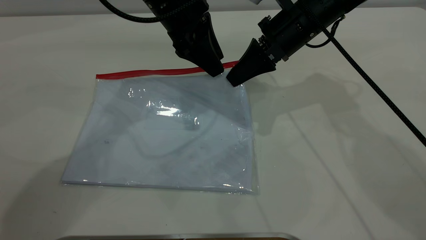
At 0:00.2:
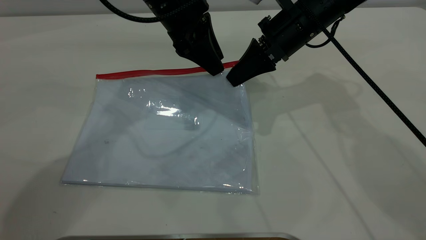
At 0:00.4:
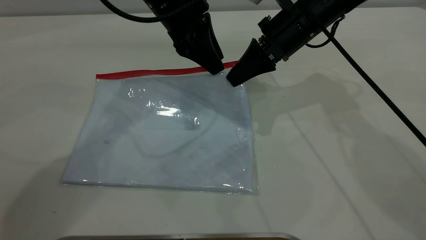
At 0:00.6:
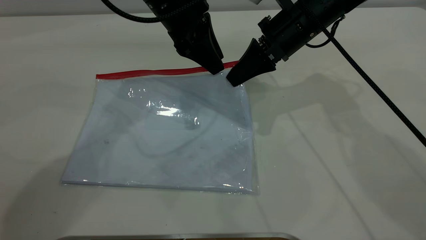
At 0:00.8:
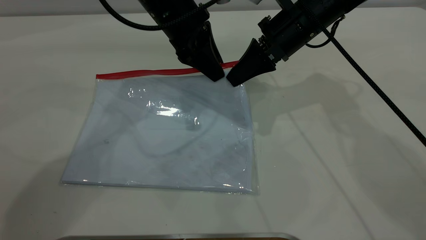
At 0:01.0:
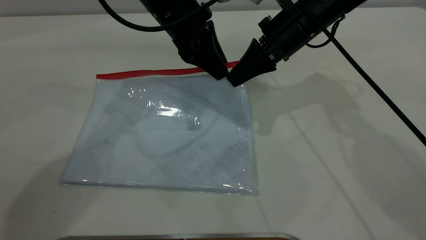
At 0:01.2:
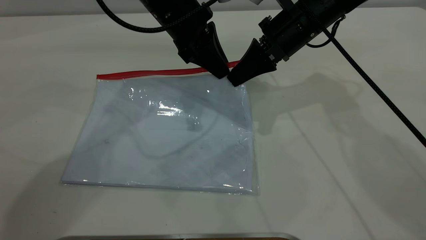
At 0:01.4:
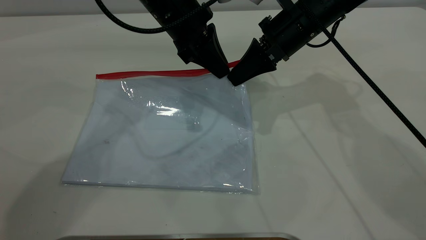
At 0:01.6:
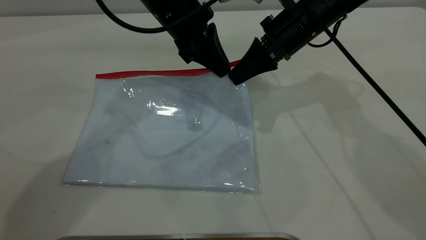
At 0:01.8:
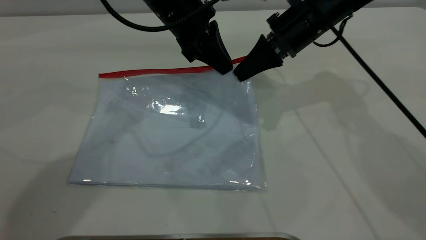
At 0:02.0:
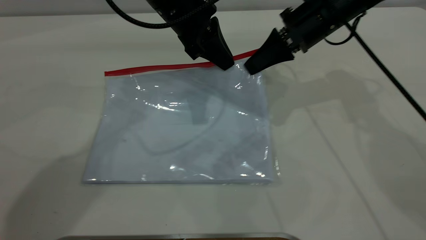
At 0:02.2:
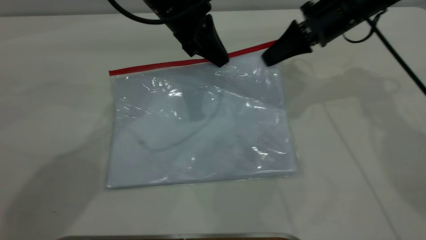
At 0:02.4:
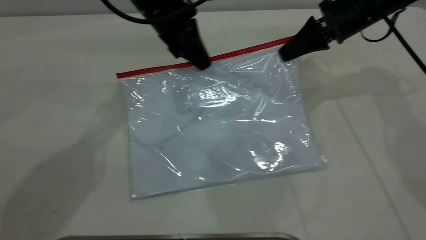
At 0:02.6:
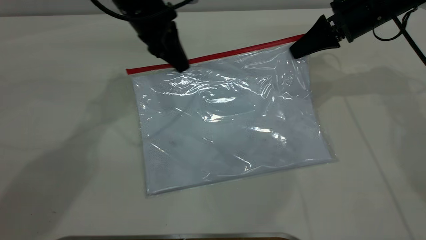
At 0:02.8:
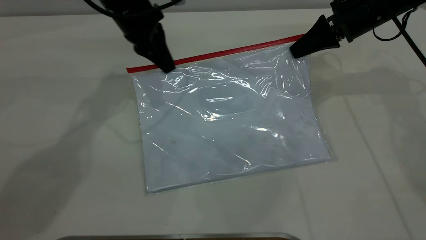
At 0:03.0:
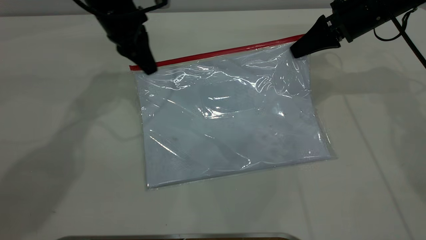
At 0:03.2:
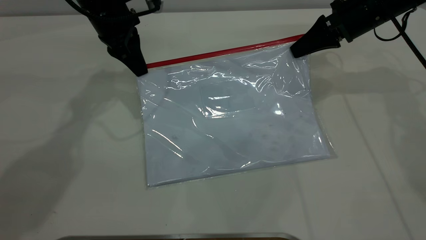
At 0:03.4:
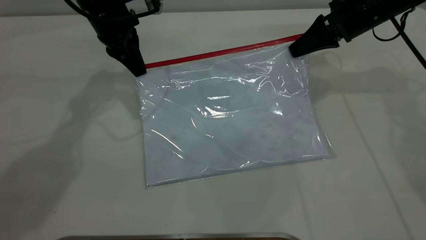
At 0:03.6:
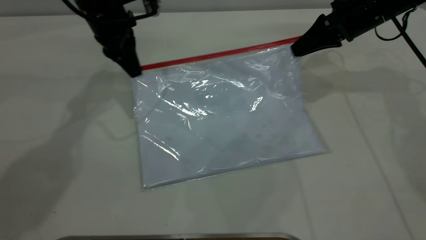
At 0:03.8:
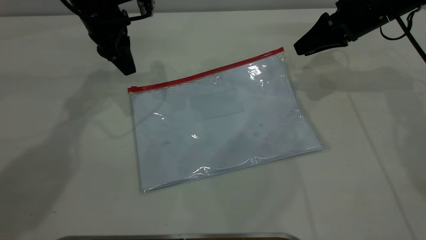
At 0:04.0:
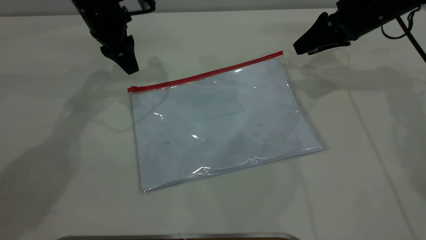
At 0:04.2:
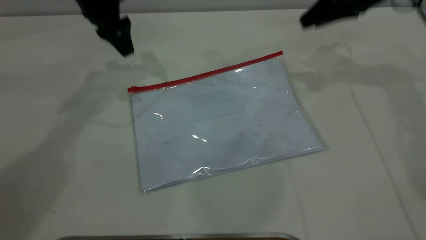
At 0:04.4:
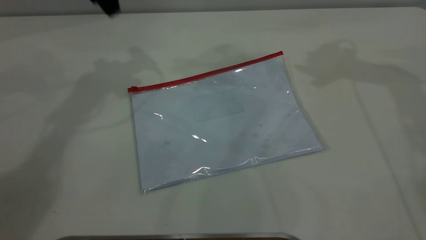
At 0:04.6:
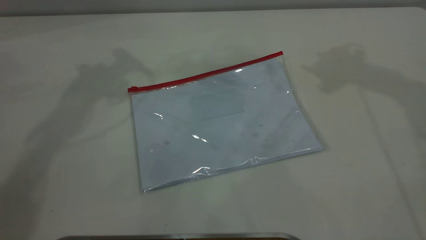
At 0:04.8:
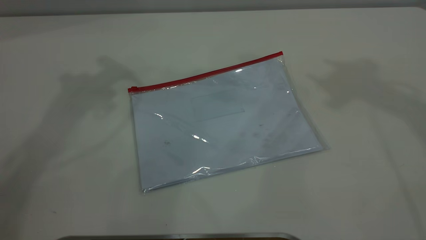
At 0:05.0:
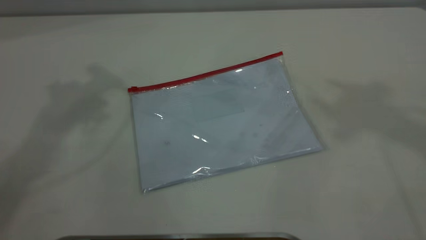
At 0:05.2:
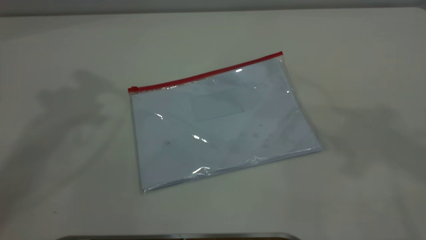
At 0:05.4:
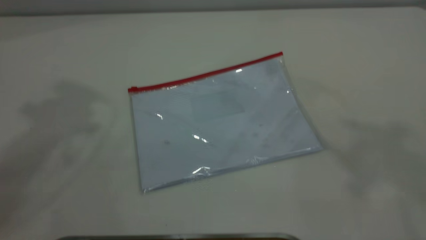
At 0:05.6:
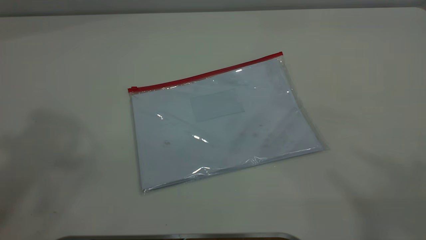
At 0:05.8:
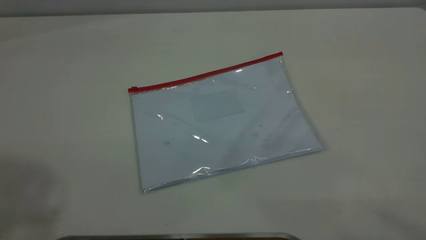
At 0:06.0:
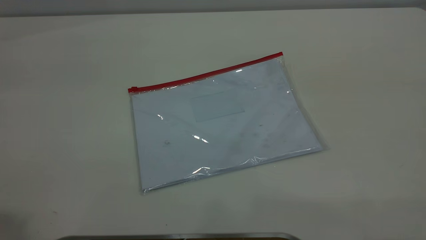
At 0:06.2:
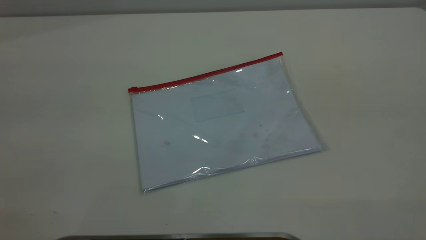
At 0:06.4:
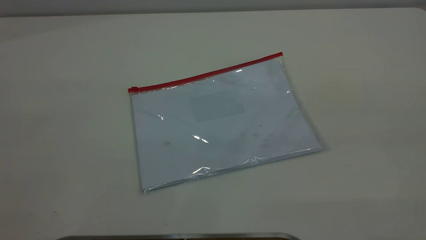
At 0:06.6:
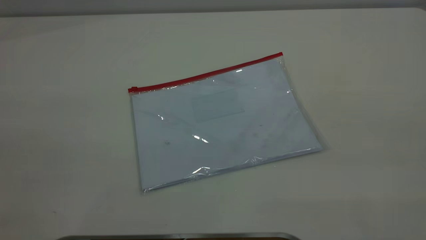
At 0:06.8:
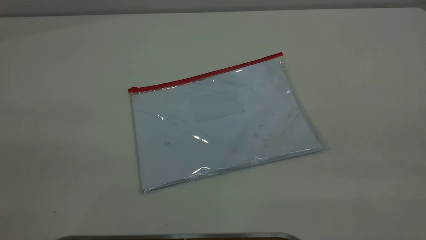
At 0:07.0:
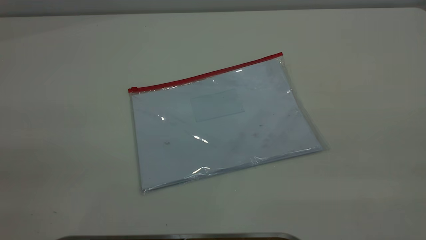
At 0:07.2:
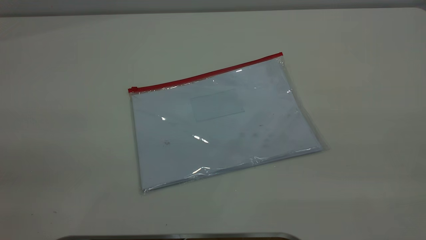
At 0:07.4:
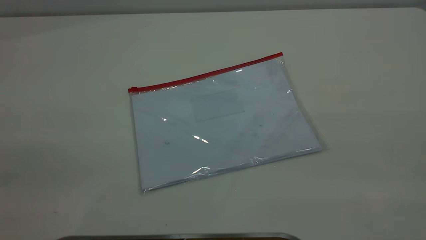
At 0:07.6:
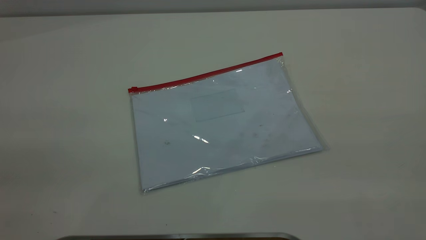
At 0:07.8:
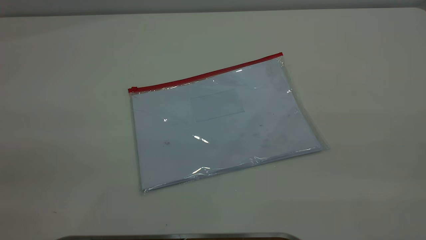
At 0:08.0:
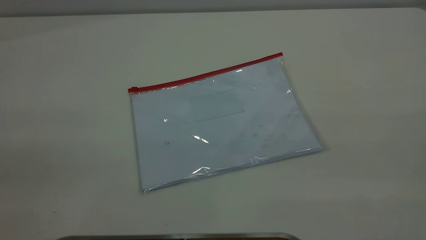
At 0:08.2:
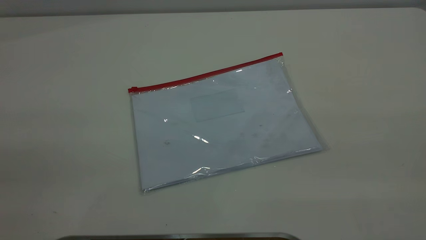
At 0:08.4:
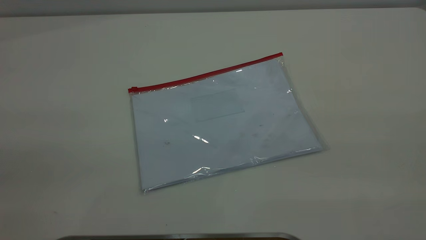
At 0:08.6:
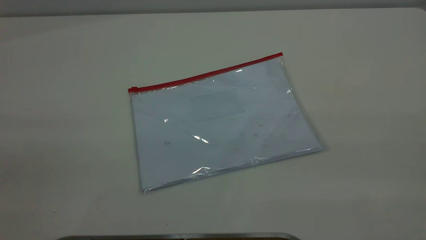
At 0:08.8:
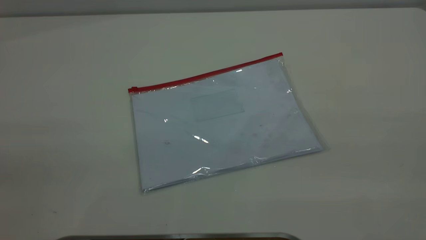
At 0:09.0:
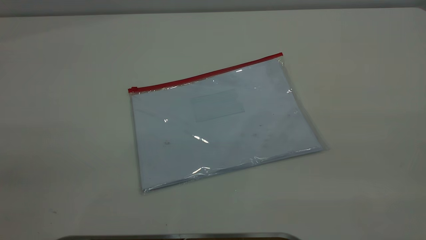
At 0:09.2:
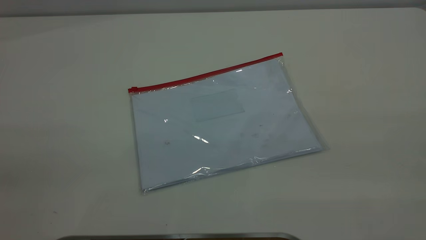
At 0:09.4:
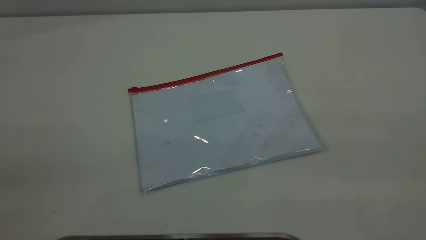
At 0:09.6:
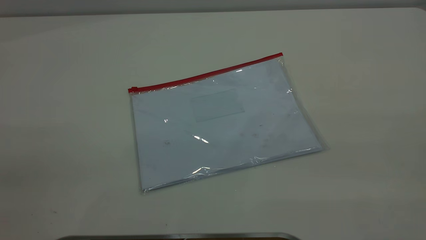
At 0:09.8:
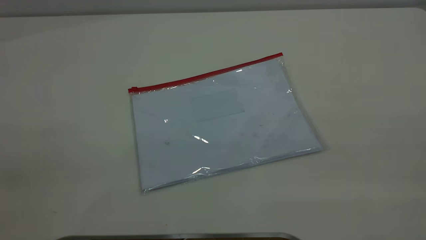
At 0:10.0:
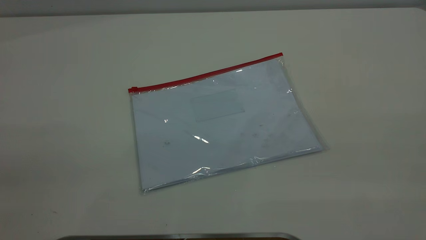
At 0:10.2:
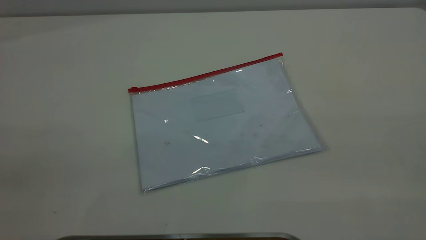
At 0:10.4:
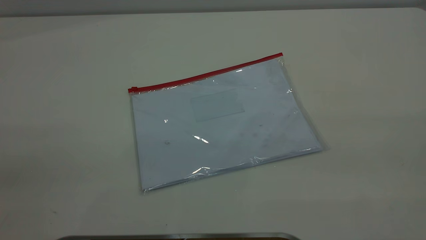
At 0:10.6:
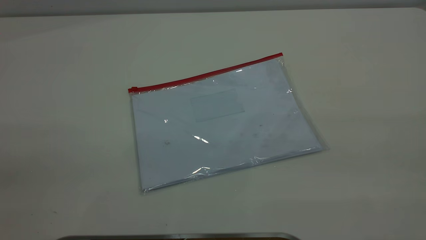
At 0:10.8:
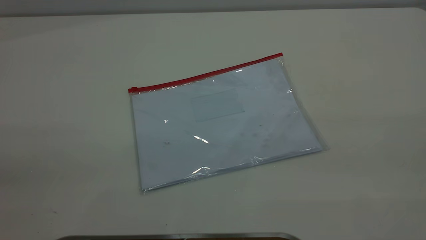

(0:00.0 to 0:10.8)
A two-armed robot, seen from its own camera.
Step, 0:00.0 - 0:03.4: Pulling up the zipper on the transparent plastic bag with the left gripper to close it.
Step, 0:03.8 - 0:04.4: Place the transparent plastic bag.
0:00.0 - 0:01.6: The left gripper closes up.
0:01.6 - 0:03.0: The left gripper heads to the left, covering some 10 cm; the right gripper travels to the right by some 10 cm.
0:03.0 - 0:04.6: Both grippers move upward, approximately 25 cm. The left gripper opens. The right gripper opens up.

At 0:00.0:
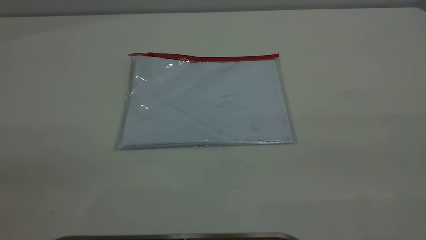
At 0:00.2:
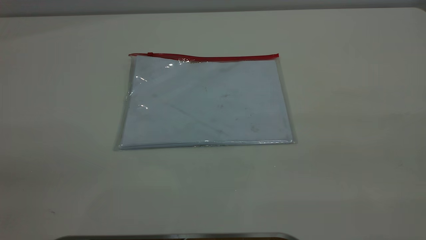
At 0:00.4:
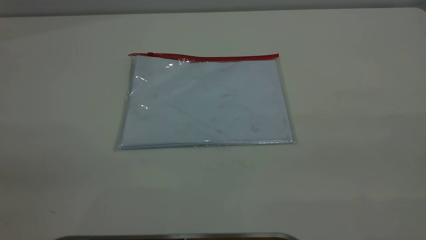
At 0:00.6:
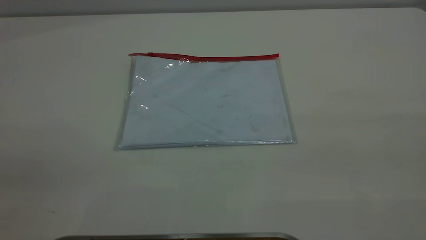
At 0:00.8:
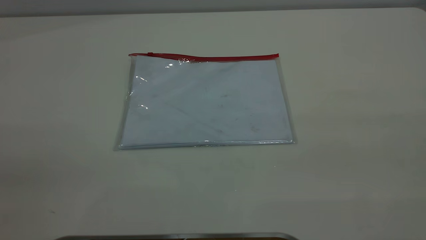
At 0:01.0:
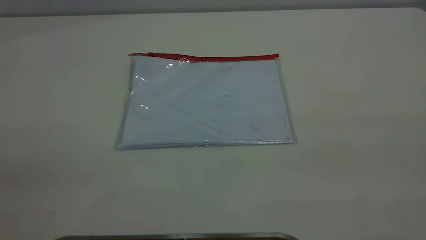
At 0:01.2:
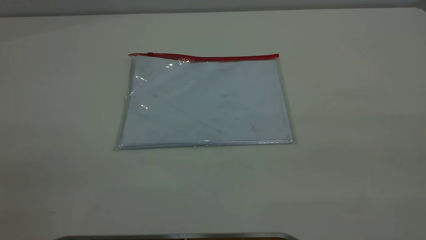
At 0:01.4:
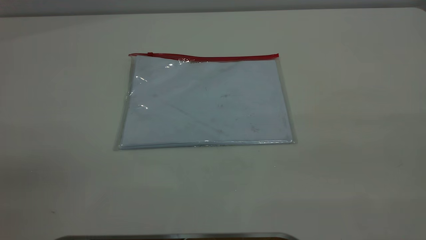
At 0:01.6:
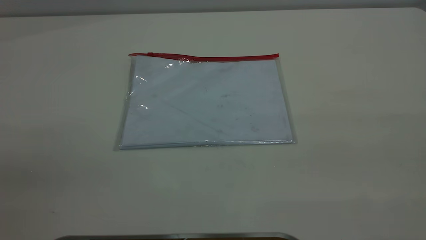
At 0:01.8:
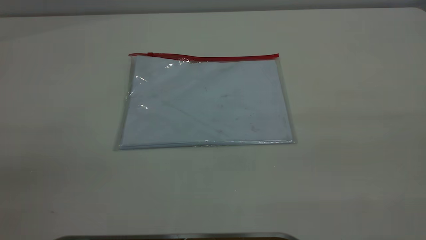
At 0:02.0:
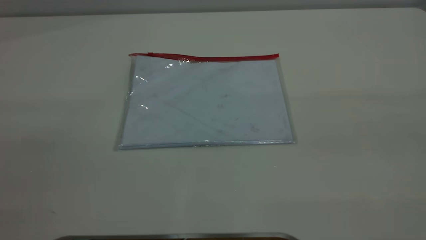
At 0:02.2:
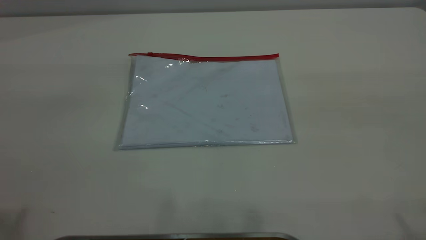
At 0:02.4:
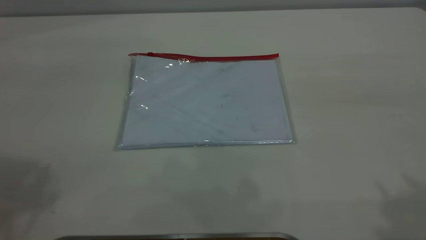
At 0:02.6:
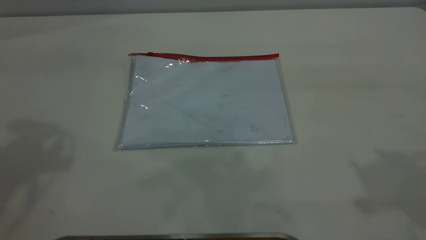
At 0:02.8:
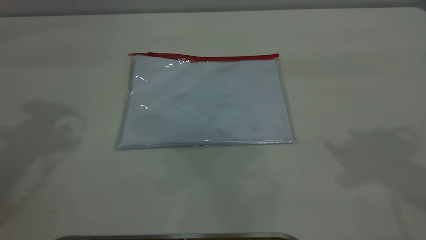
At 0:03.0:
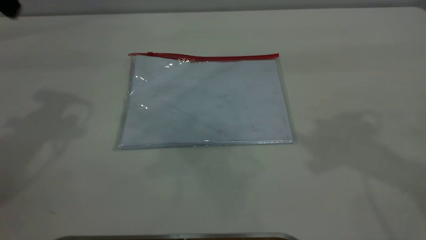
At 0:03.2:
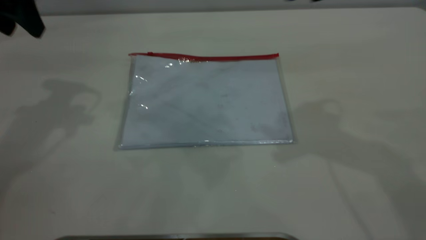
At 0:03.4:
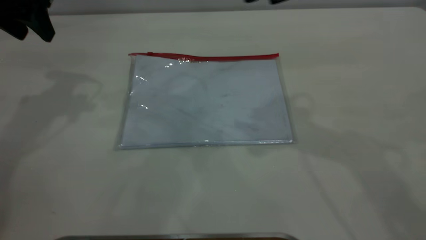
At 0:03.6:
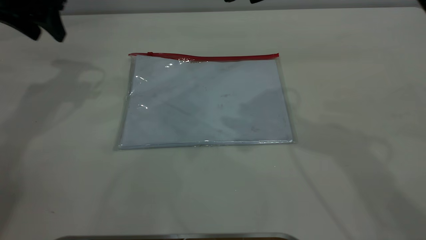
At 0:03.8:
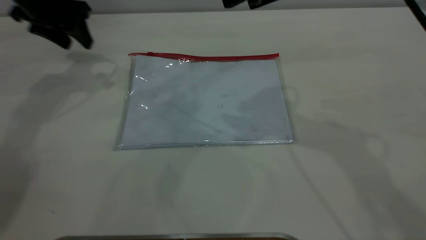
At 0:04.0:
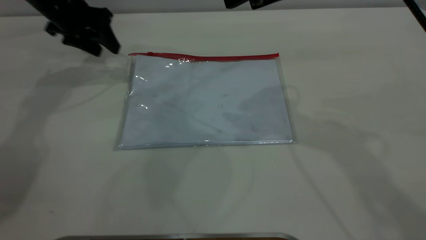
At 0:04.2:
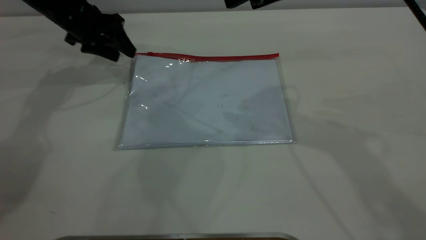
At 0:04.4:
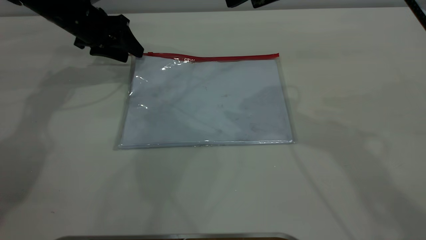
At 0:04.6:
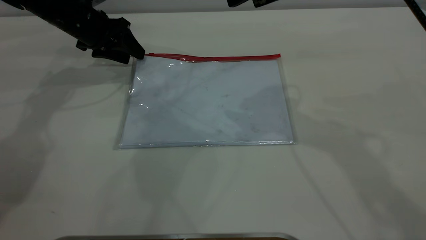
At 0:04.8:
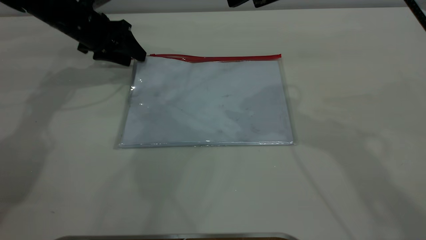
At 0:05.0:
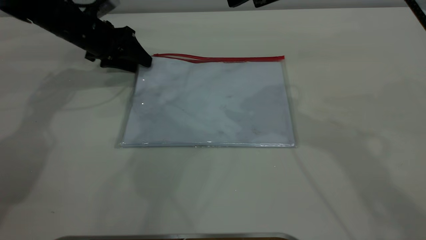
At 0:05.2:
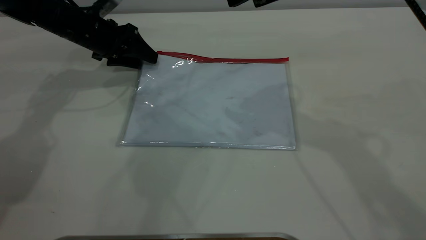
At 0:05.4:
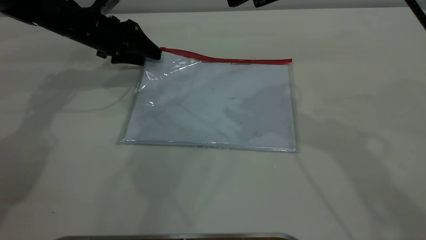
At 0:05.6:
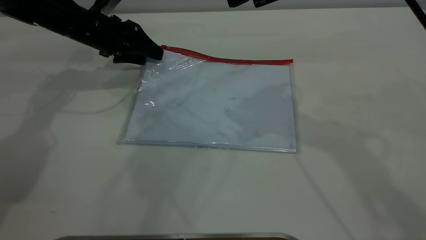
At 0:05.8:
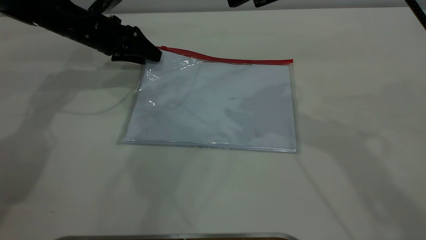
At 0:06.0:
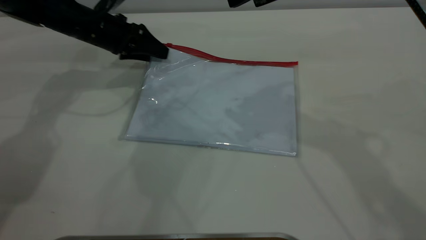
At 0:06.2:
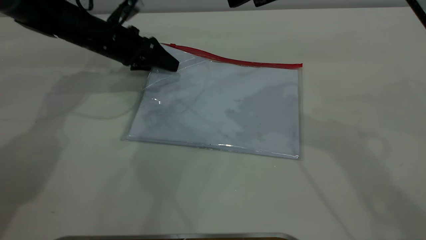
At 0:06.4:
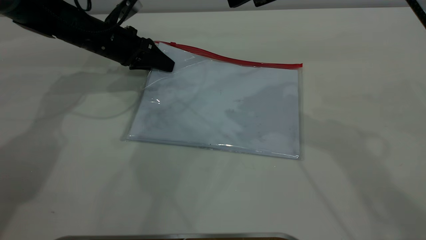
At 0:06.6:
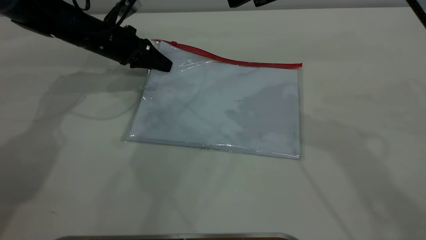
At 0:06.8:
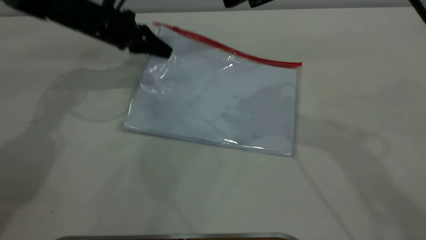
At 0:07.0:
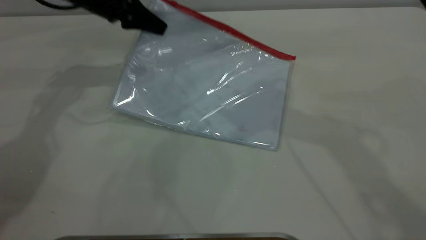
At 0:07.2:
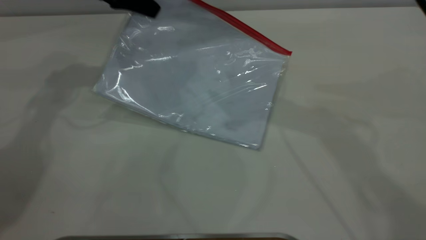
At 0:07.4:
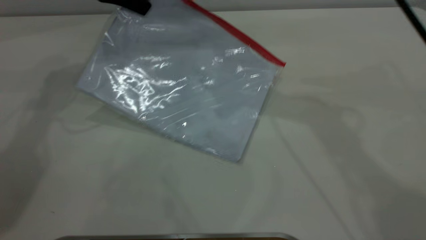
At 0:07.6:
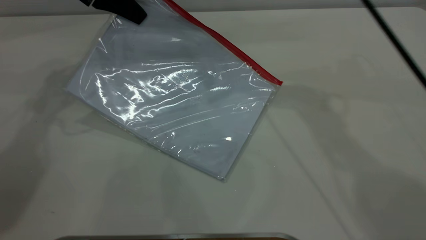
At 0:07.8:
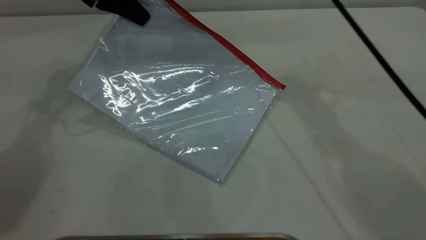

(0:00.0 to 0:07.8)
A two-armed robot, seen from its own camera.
Step, 0:00.0 - 0:06.8: Pick up the transparent plastic bag with the left gripper.
0:00.0 - 0:01.6: Neither gripper changes place.
0:01.6 - 0:03.2: The left gripper goes roughly 40 cm forward.
0:03.2 - 0:04.6: The left gripper travels downward and forward by about 20 cm, while the right gripper shifts by approximately 5 cm.
0:04.6 - 0:06.2: The left gripper moves about 5 cm.
0:06.2 - 0:07.8: The left gripper moves upward, some 15 cm, and closes its fingers. Meanwhile the right gripper moves forward and to the left, some 10 cm.
